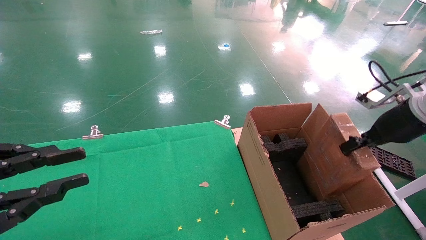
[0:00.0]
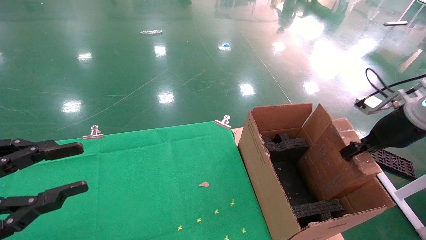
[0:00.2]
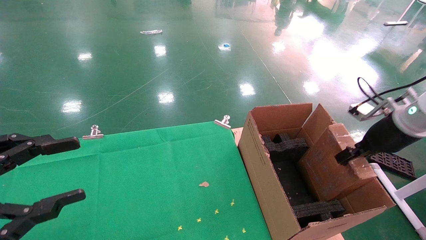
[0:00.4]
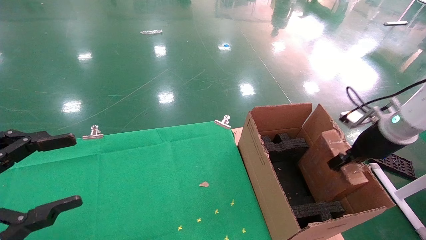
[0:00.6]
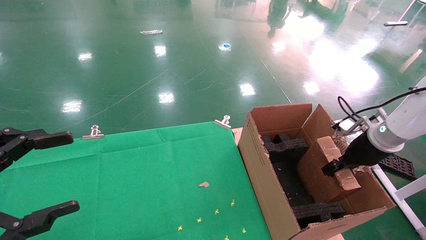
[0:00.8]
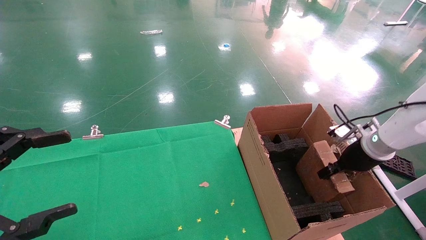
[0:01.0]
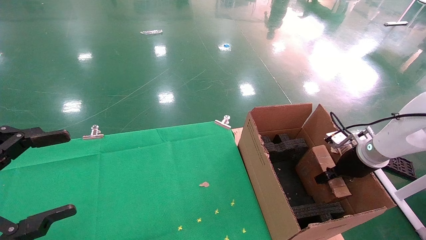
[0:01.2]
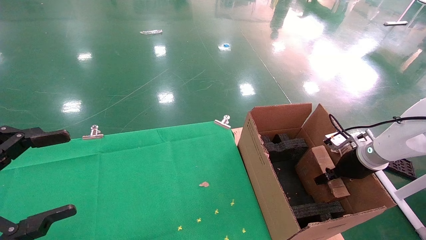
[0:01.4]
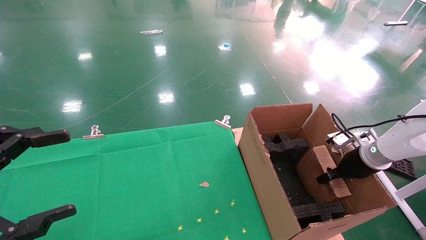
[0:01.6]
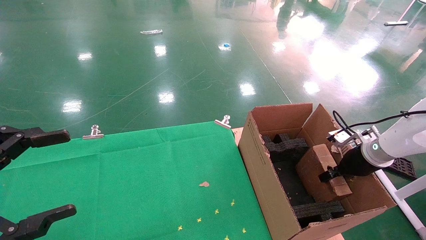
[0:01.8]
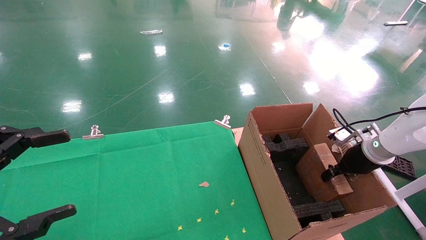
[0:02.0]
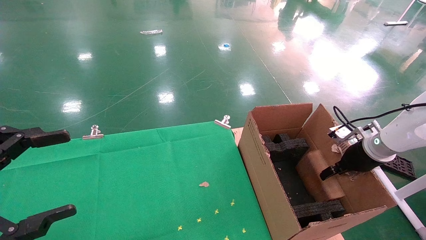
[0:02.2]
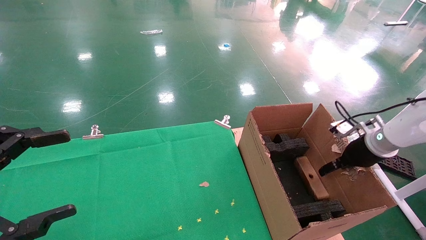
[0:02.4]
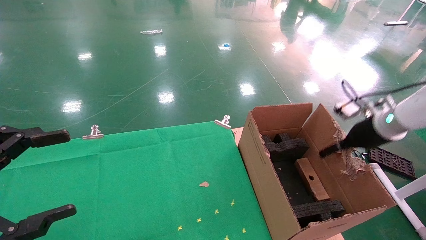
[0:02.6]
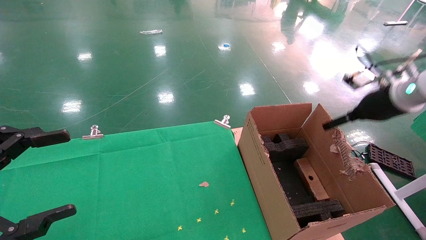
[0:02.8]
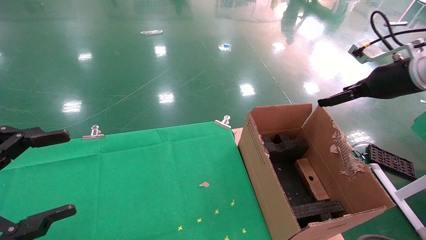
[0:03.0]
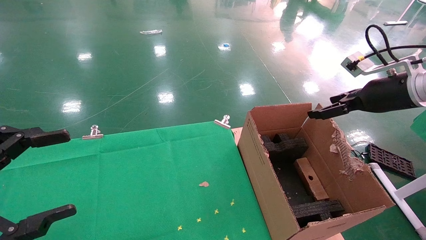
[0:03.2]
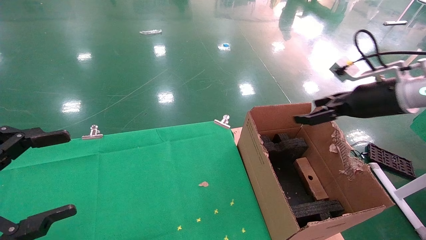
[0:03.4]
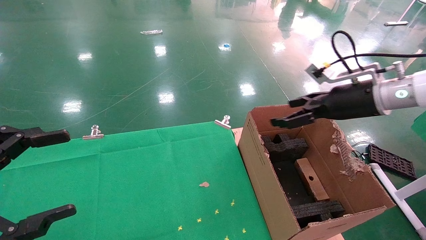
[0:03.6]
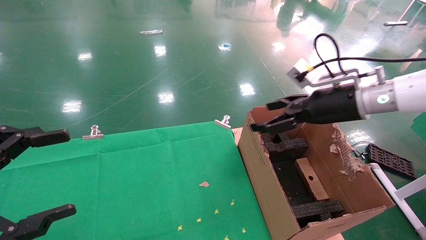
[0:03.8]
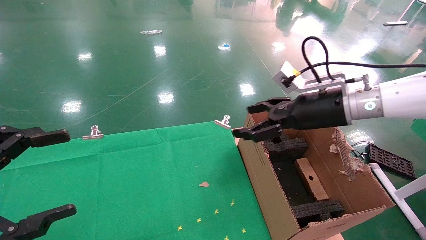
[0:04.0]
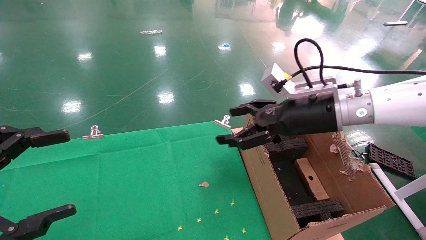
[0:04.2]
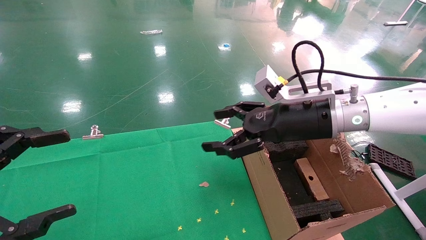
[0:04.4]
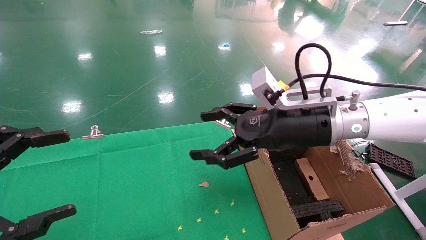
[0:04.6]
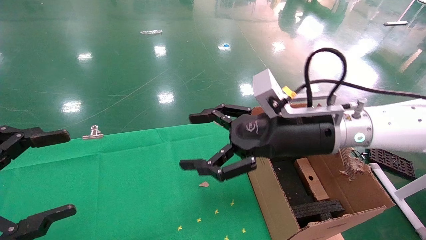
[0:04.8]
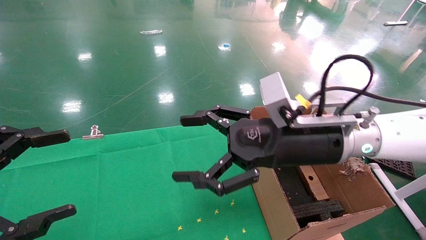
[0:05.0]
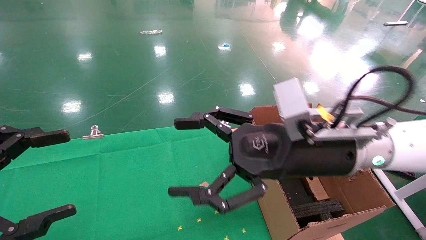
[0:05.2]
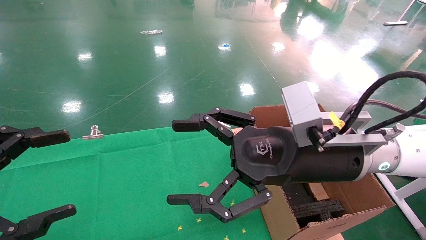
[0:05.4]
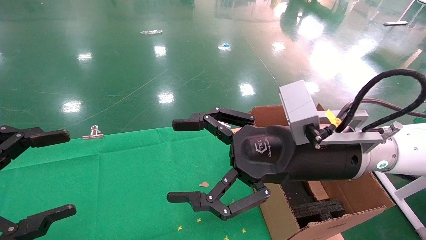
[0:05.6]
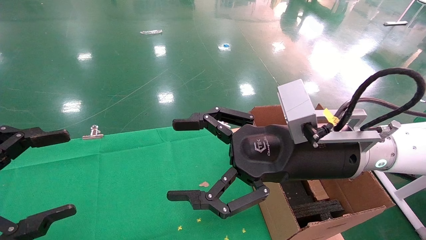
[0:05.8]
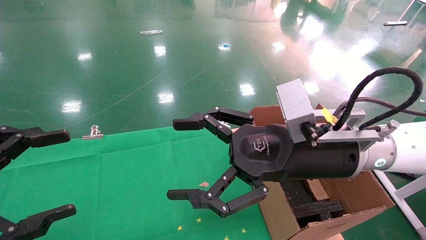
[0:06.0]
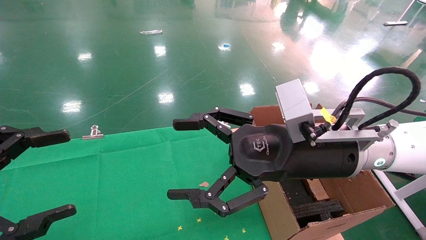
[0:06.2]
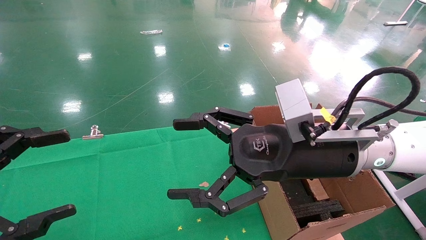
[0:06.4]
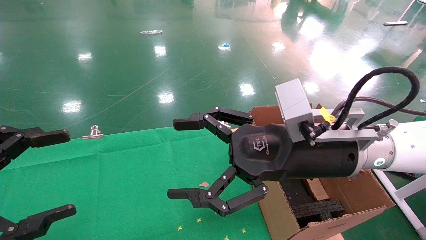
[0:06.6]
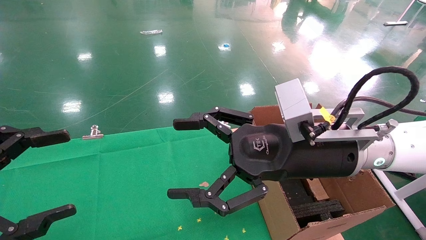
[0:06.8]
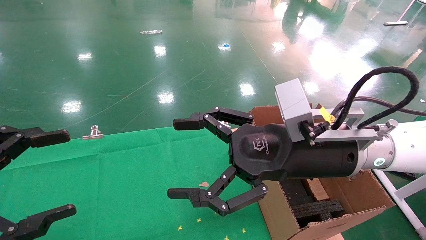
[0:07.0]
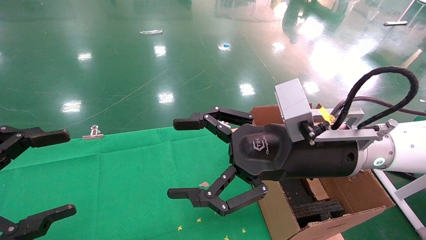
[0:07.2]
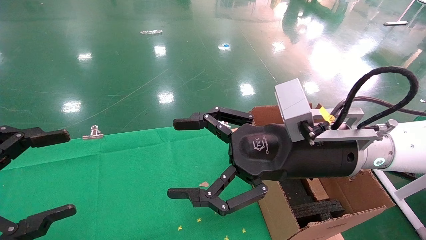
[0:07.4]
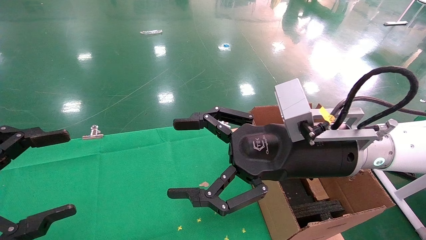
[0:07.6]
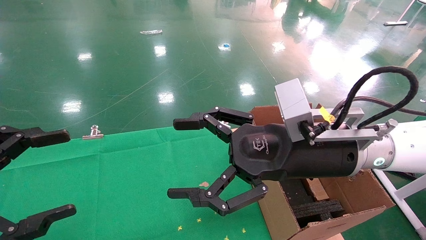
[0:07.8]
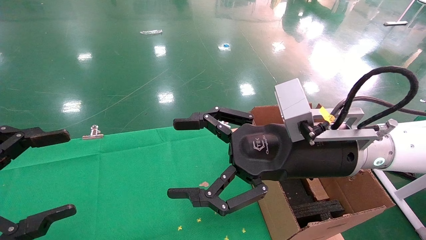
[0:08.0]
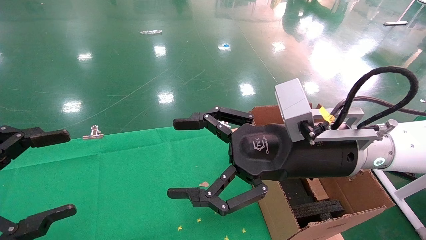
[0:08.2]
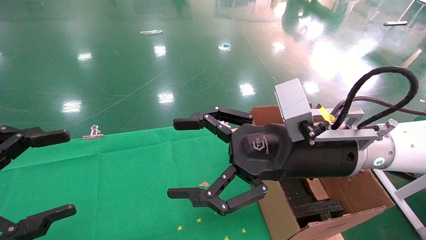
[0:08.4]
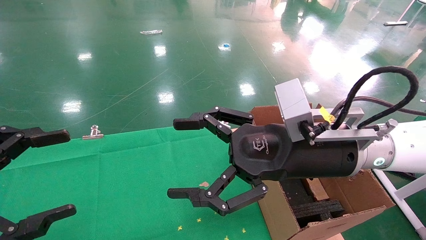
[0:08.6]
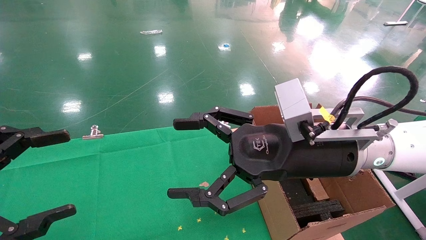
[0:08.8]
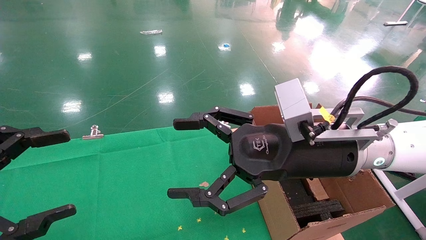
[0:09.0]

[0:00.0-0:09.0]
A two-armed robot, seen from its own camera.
Task of the whole recording: using a robotic arm to pick up a cardboard box and palace it the carton.
Step, 0:00.0 to 0:02.8: Place the mouse and the power cord paper box into the container.
0:00.0 to 0:01.6: The left gripper opens its fingers. The right gripper moves downward and forward, approximately 15 cm.
0:01.6 to 0:03.0: The right gripper heads upward, covering approximately 20 cm, and opens its fingers.
0:03.0 to 0:04.4: The right gripper moves to the left, about 20 cm.
0:04.4 to 0:06.0: The right gripper goes roughly 10 cm backward.
0:06.0 to 0:09.0: Both grippers stay put.
